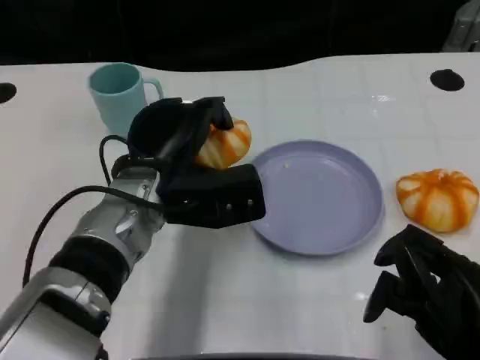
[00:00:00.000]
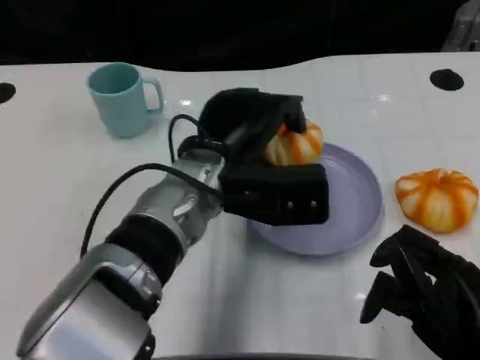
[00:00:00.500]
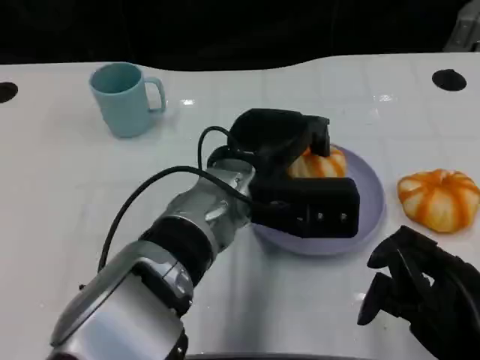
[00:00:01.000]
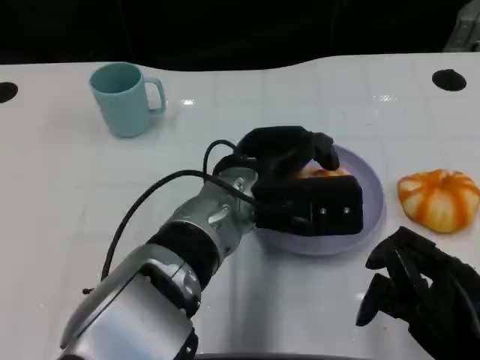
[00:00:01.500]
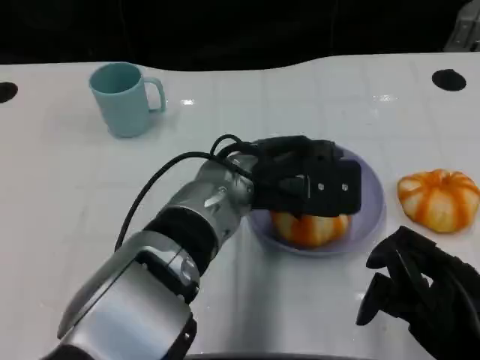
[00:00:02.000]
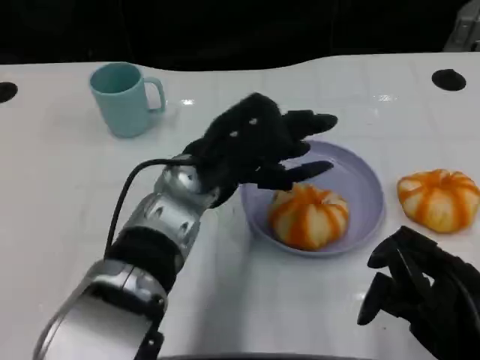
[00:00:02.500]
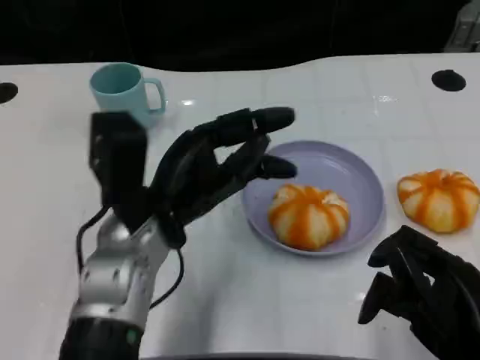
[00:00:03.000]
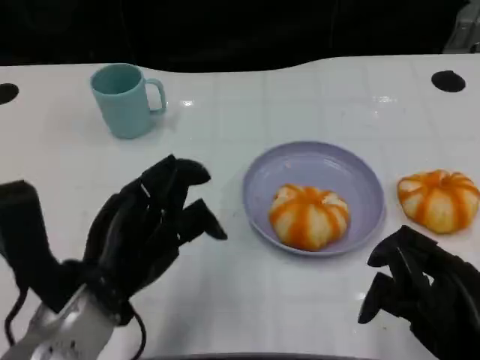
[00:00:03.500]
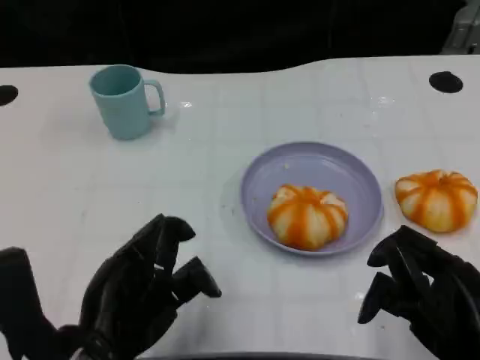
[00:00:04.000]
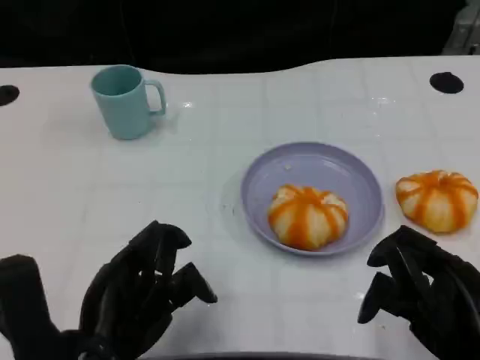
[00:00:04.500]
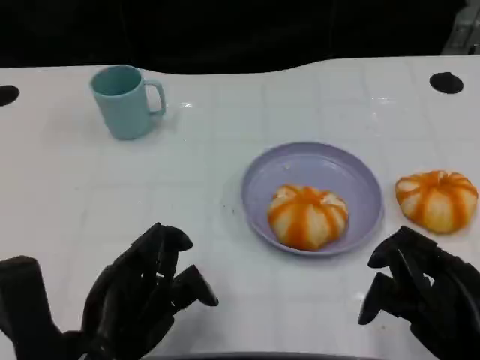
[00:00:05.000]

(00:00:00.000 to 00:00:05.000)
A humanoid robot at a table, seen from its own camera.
Task of the whole recording: Grasp the bread from the table and place it into the plate.
00:00:02.500 - 00:00:05.000: The left hand moves backward and to the left, some 20 cm.

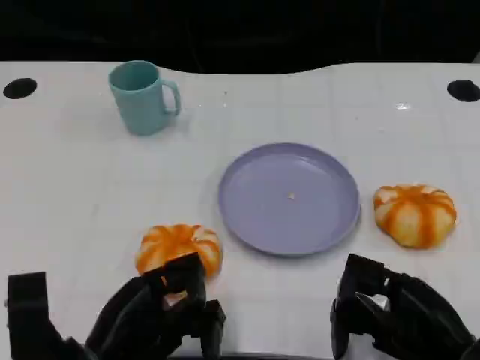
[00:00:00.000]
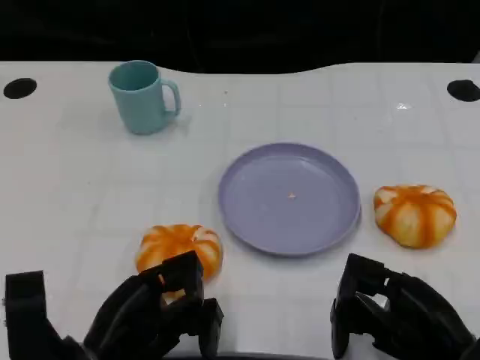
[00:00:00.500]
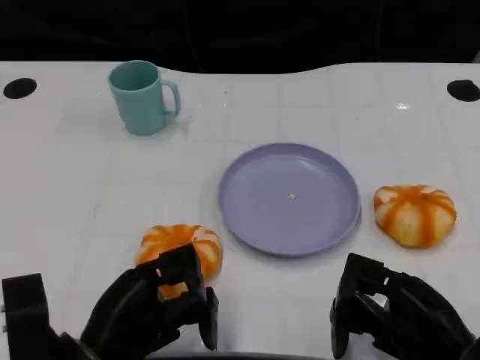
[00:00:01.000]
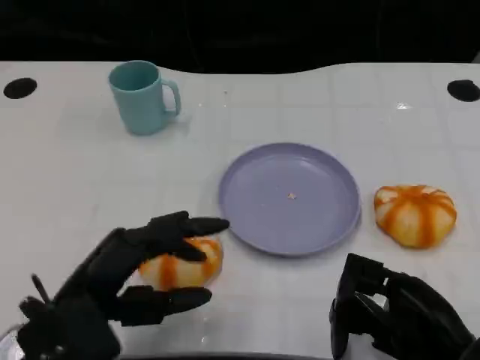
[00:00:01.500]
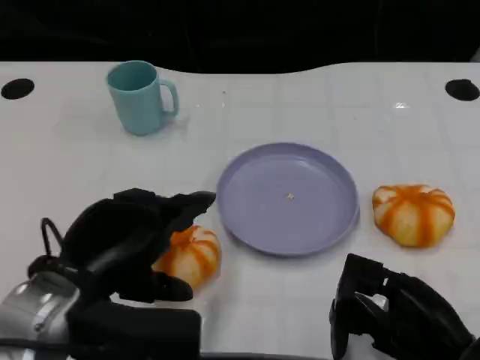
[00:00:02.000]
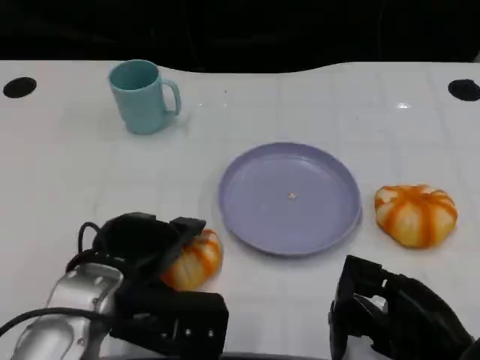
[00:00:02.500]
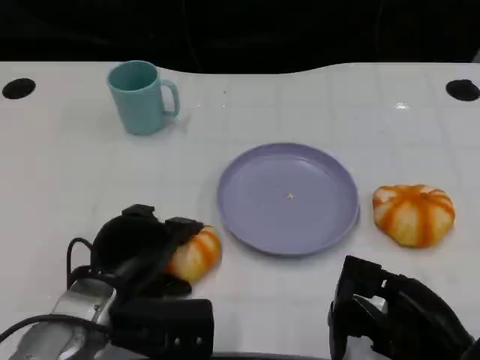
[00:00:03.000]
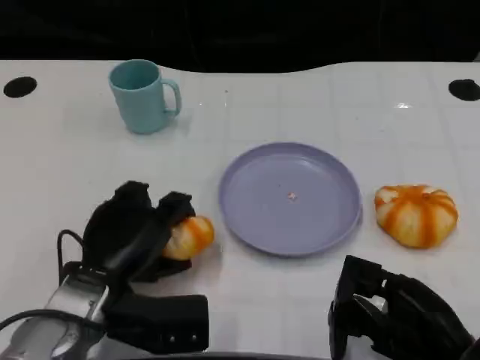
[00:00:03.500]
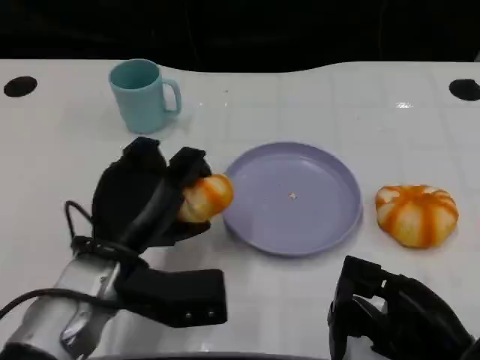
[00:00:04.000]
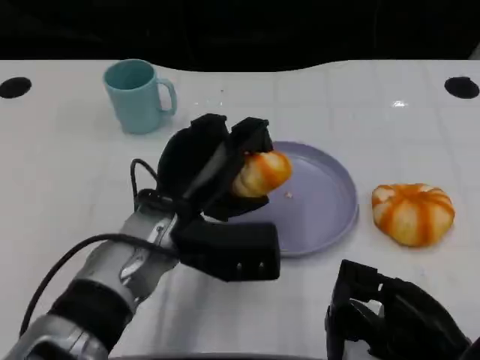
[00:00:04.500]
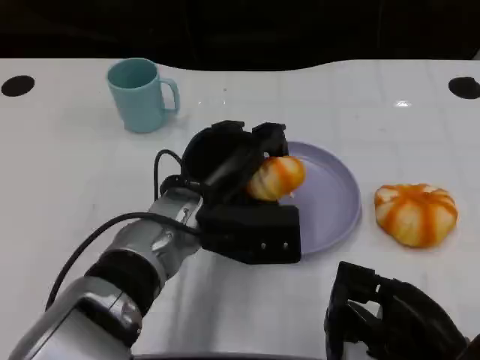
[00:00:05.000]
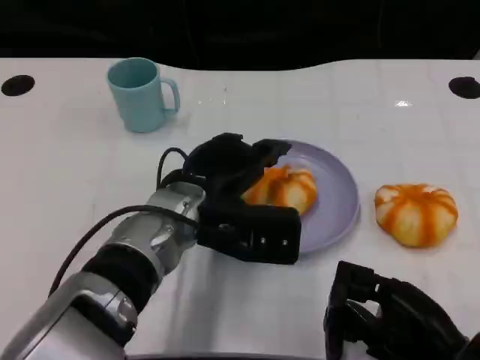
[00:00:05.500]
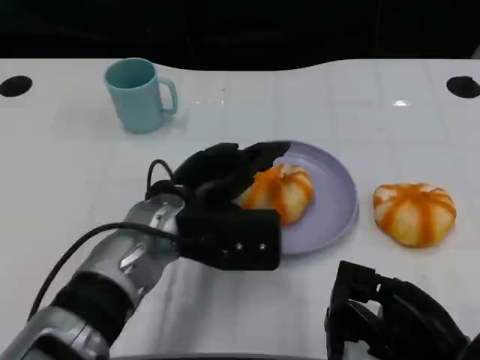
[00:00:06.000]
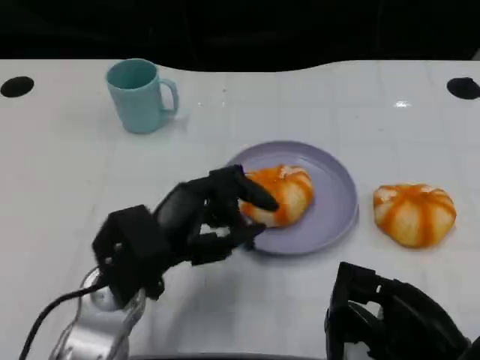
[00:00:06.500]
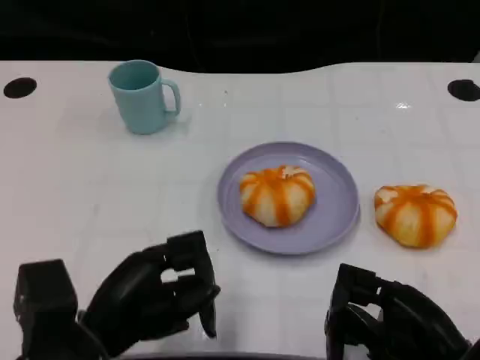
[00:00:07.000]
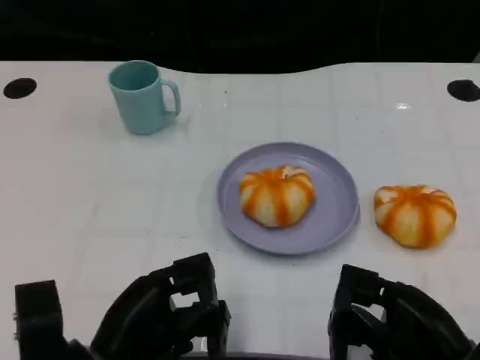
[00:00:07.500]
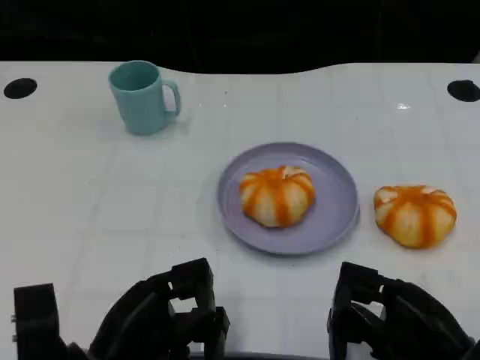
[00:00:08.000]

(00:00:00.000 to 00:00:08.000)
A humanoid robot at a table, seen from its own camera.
Task of the whole recording: Grasp the bread from the table and place it into the plate.
00:00:00.000 - 00:00:02.000: The left hand is displaced upward by about 10 cm.
00:00:02.000 - 00:00:04.000: The left hand heads forward, covering about 5 cm.
00:00:04.000 - 00:00:06.000: The left hand shifts by roughly 5 cm.
00:00:06.000 - 00:00:08.000: The left hand heads backward, to the left and downward, covering roughly 15 cm.
